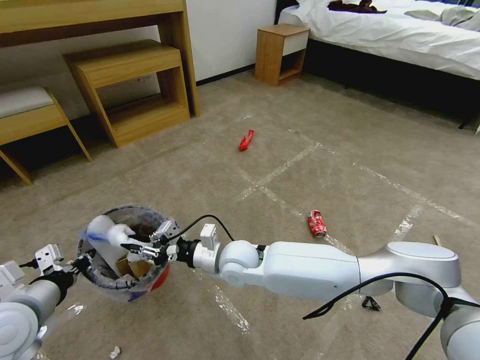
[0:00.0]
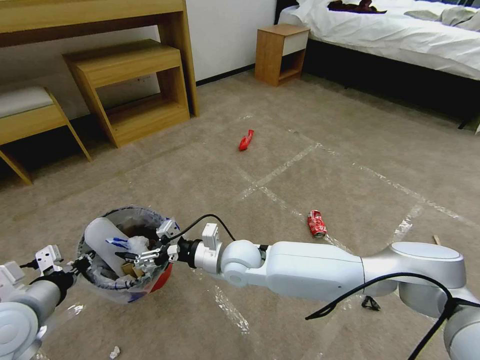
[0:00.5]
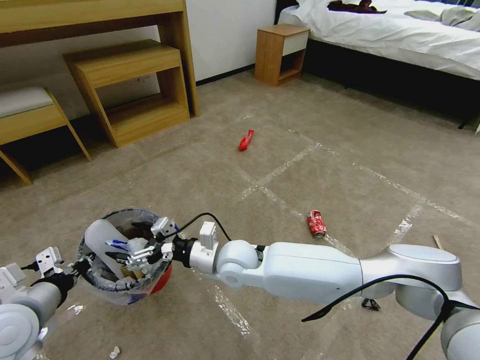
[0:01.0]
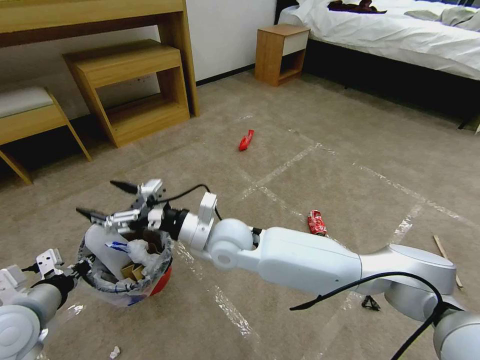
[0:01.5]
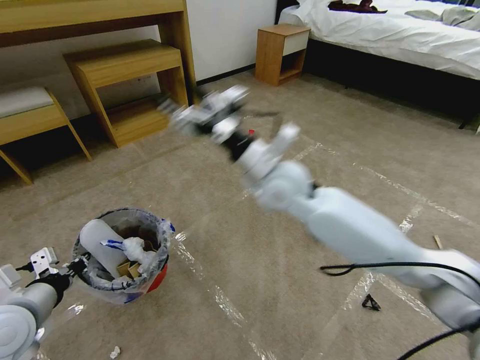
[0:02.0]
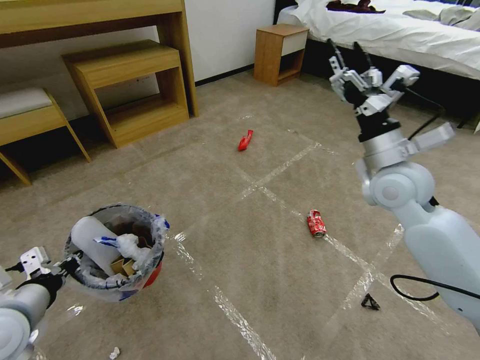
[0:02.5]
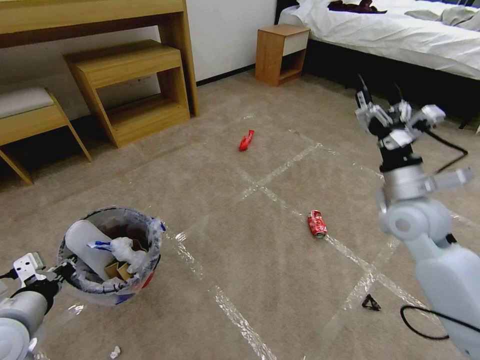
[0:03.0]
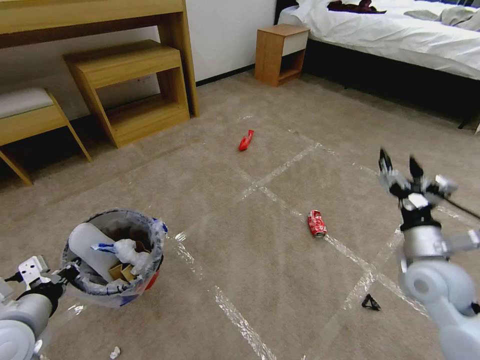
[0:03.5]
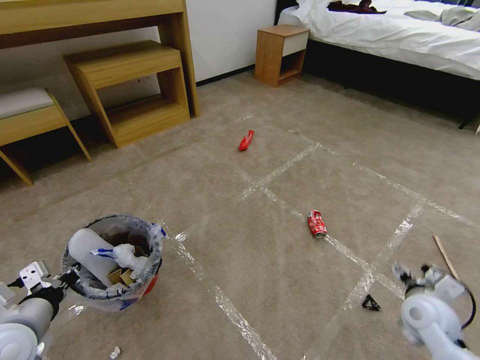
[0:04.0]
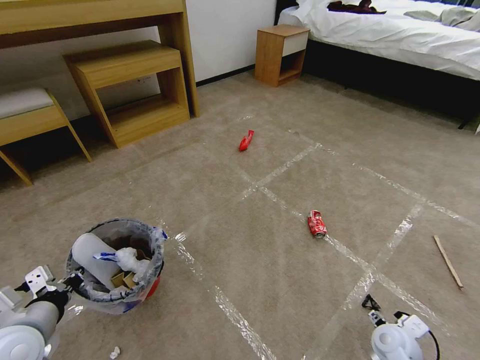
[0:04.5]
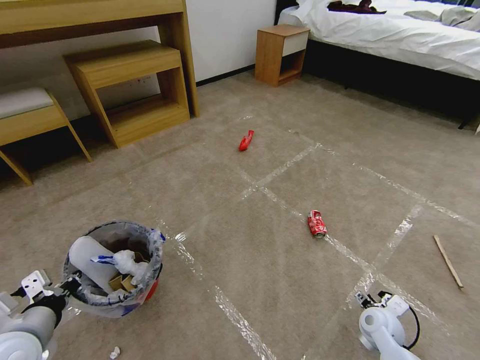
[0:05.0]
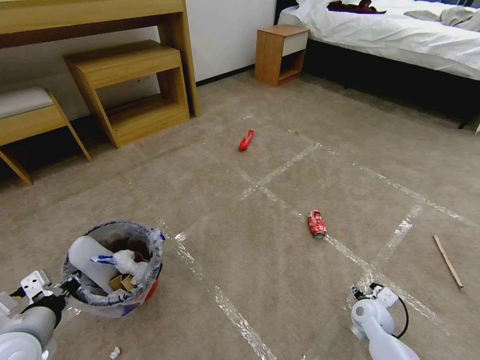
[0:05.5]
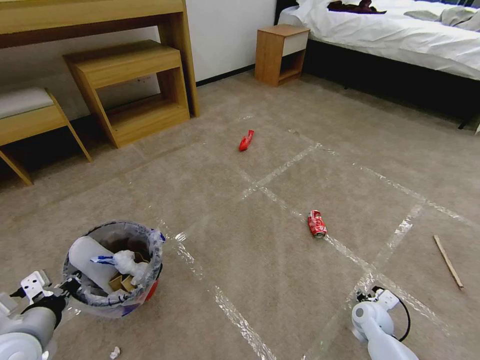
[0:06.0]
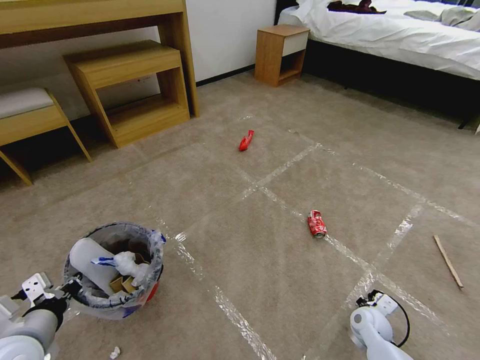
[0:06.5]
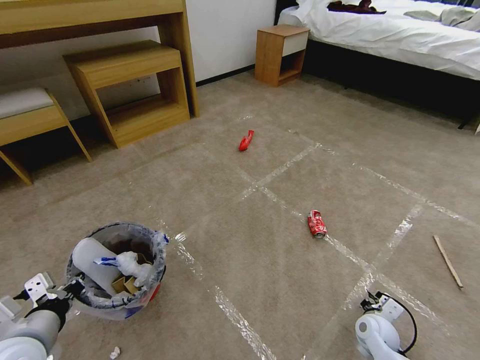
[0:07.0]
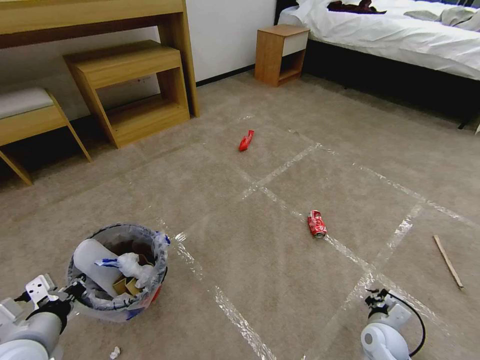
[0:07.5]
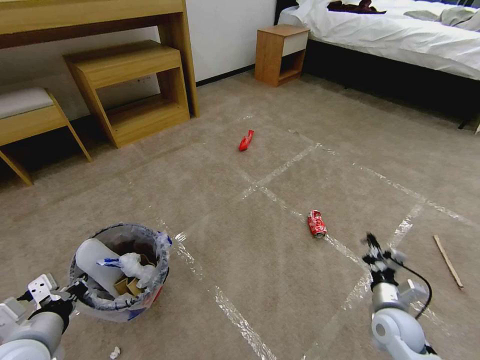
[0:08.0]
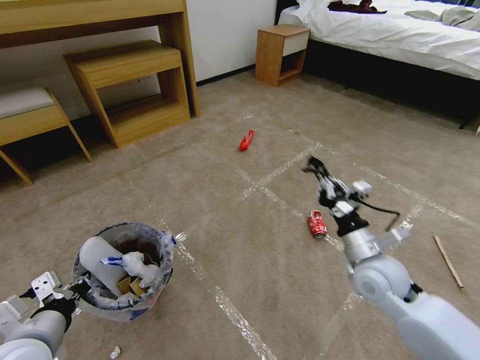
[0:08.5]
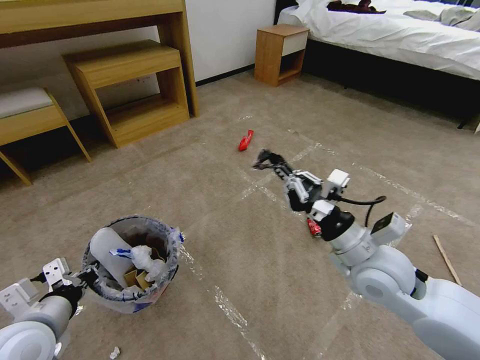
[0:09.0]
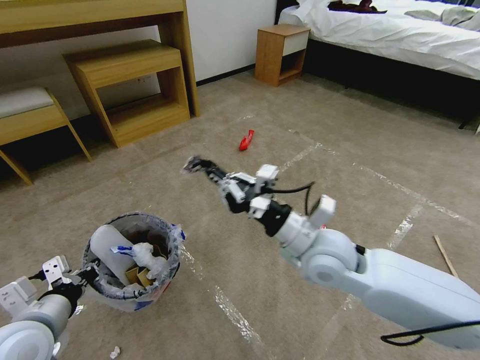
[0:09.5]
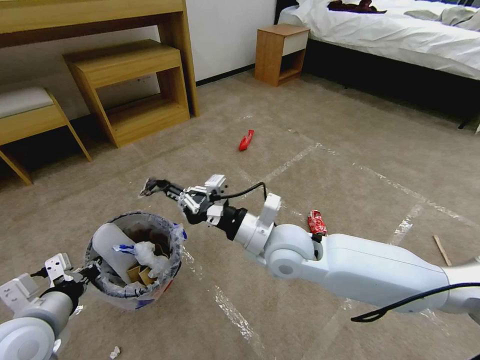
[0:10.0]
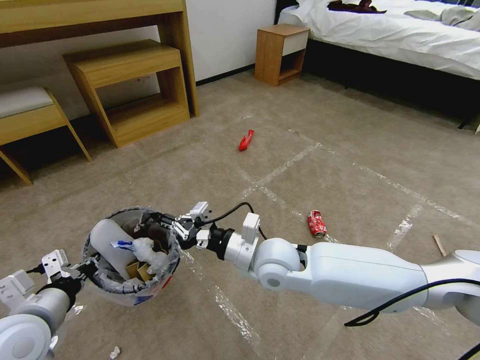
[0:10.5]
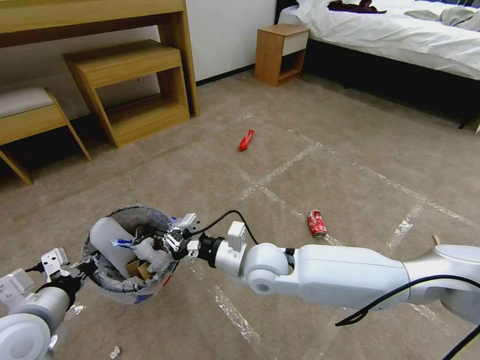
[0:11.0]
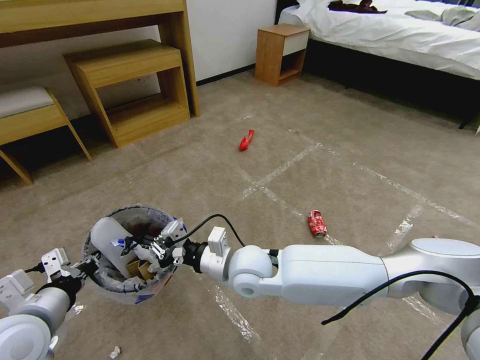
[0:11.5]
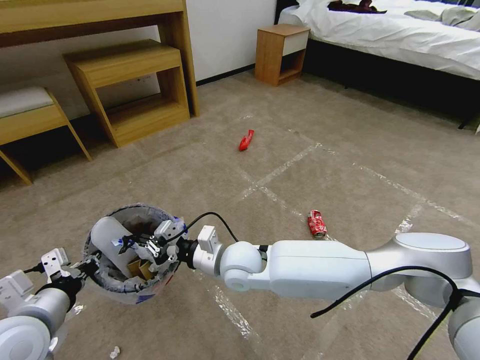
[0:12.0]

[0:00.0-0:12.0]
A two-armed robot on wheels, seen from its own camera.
Task of the whole recording: Pick up the trash bin and place the garbage on the floor into it.
0:00.0 to 0:02.0: The right gripper moves upward and to the right, some 25 cm, and opens its fingers.
0:02.0 to 0:04.0: The right gripper travels to the right, downward and backward by roughly 40 cm.
0:04.0 to 0:06.0: The right gripper heads downward, covering approximately 15 cm.
0:06.0 to 0:08.0: The right gripper moves upward, roughly 10 cm, and closes.
0:08.0 to 0:10.0: The right gripper travels to the left and upward by roughly 35 cm.
0:10.0 to 0:12.0: The right gripper goes some 10 cm to the left and downward.

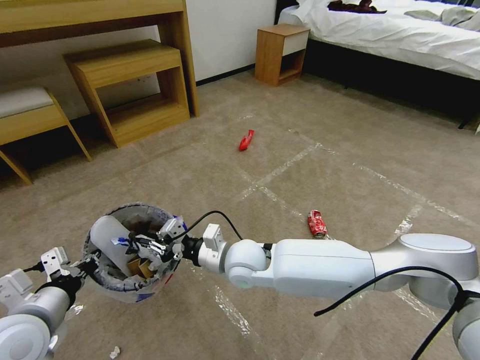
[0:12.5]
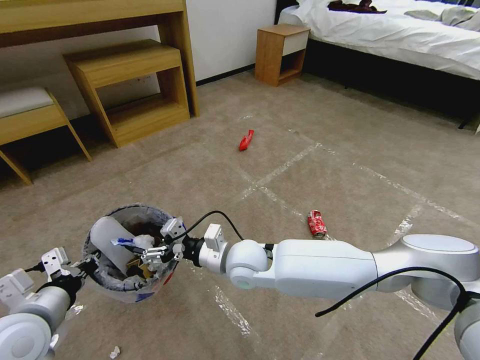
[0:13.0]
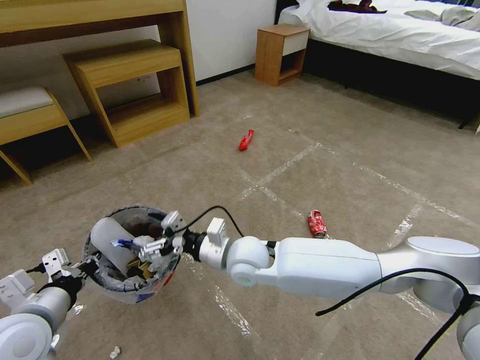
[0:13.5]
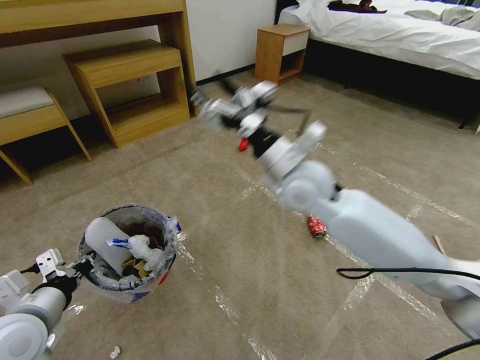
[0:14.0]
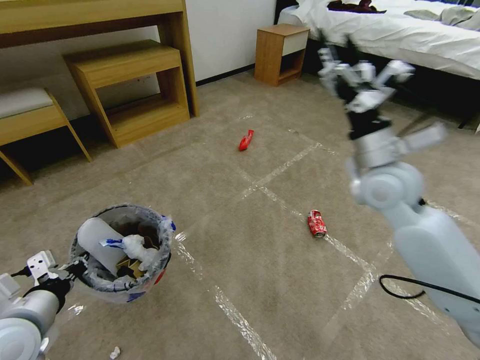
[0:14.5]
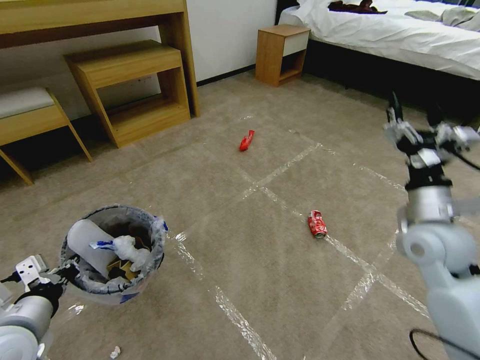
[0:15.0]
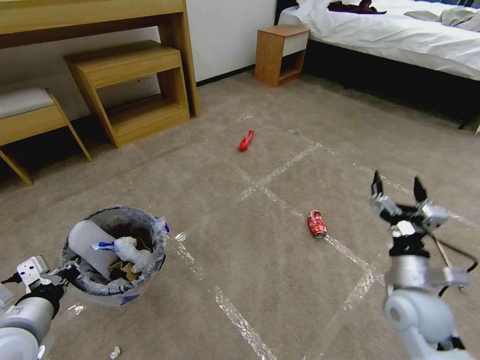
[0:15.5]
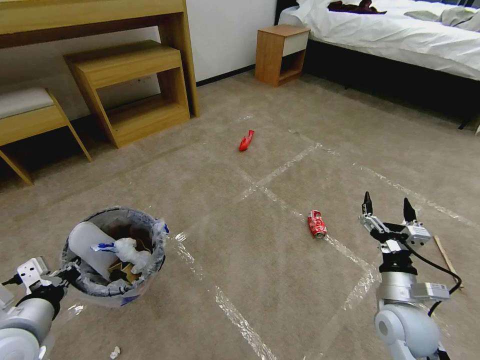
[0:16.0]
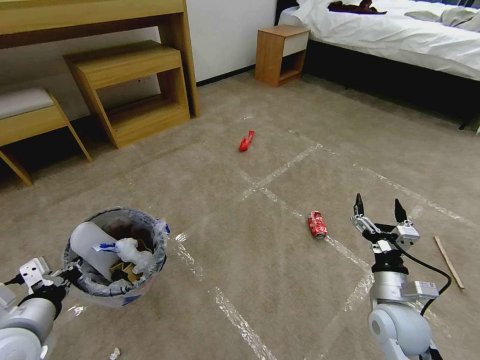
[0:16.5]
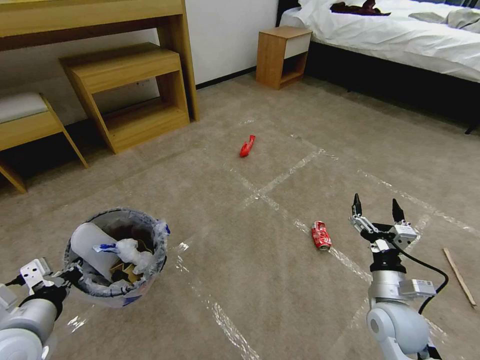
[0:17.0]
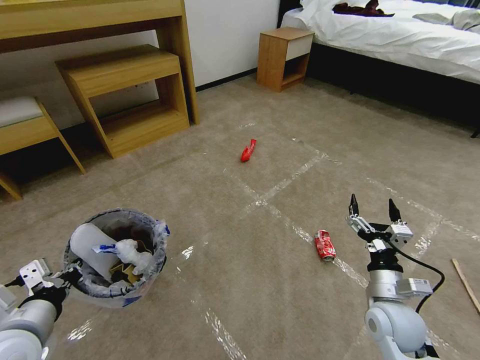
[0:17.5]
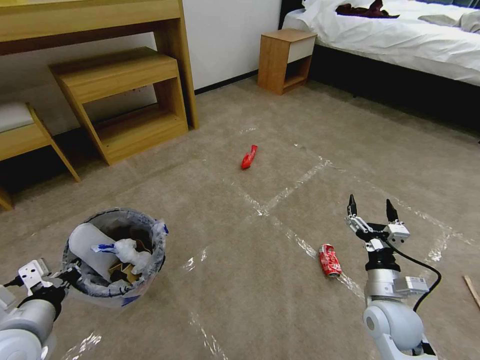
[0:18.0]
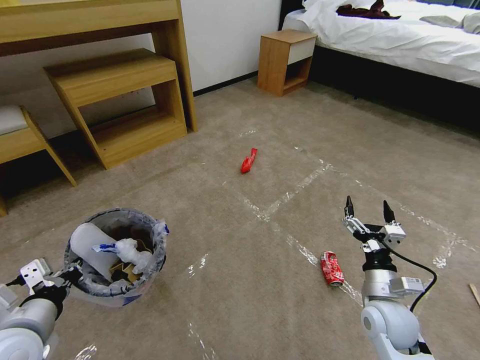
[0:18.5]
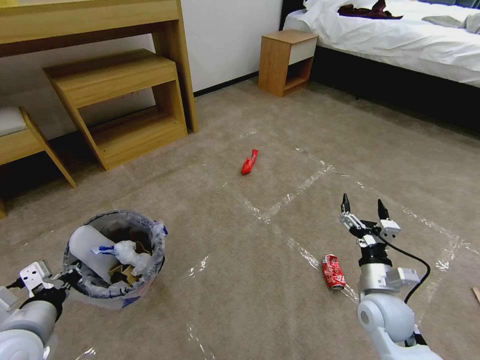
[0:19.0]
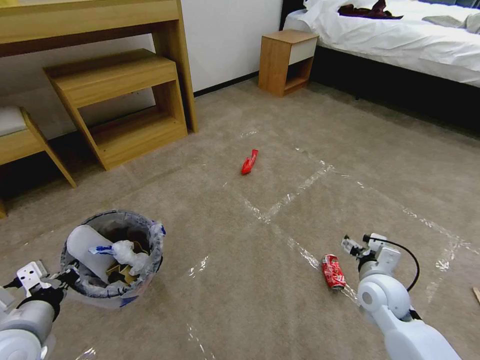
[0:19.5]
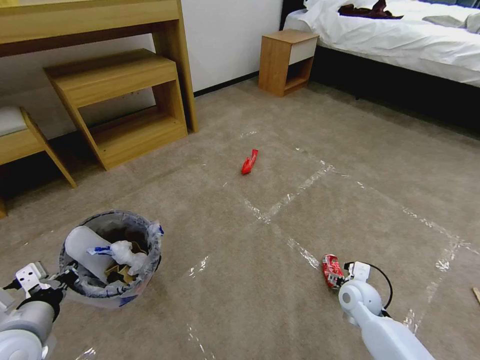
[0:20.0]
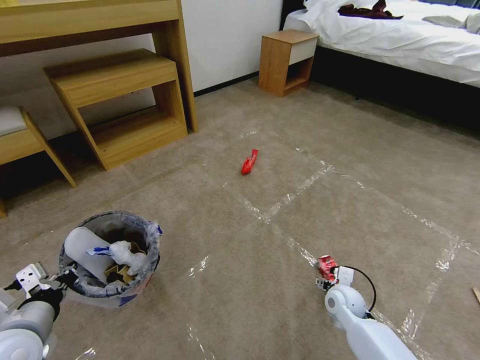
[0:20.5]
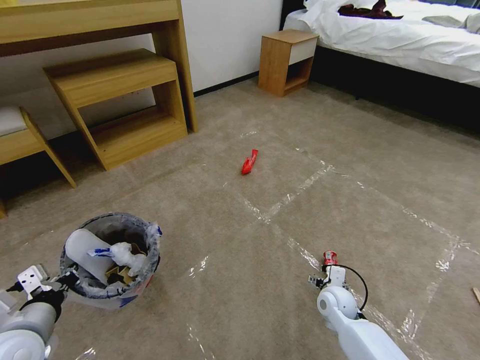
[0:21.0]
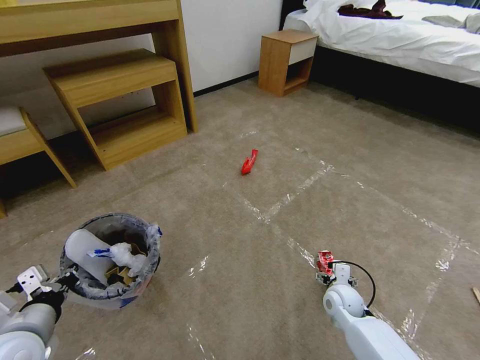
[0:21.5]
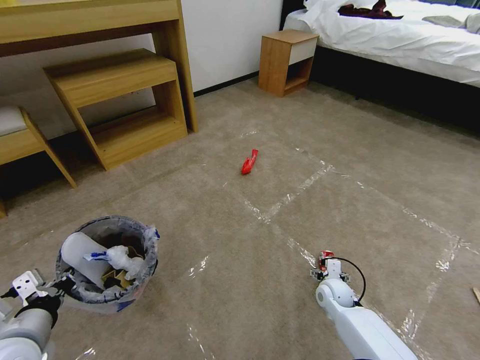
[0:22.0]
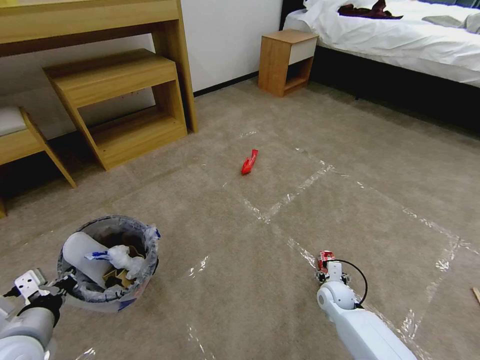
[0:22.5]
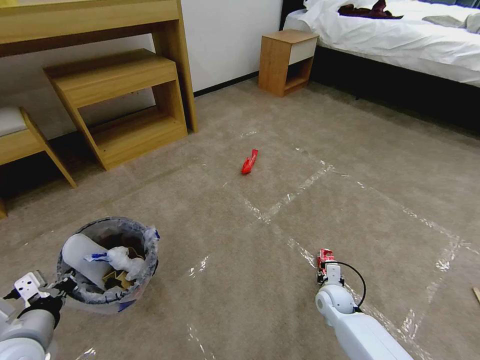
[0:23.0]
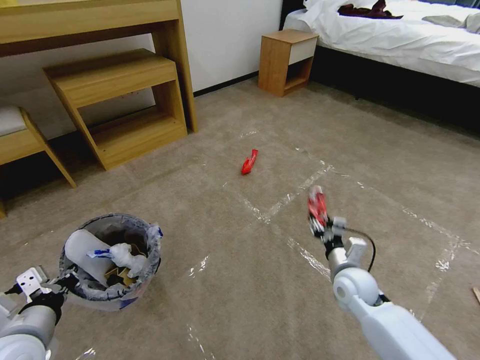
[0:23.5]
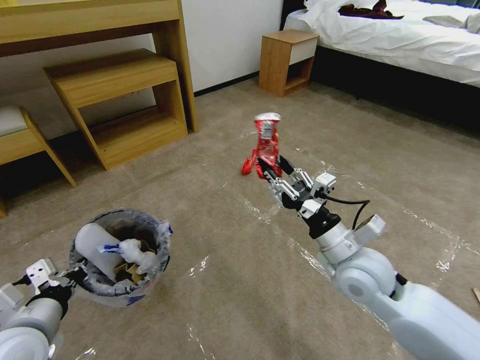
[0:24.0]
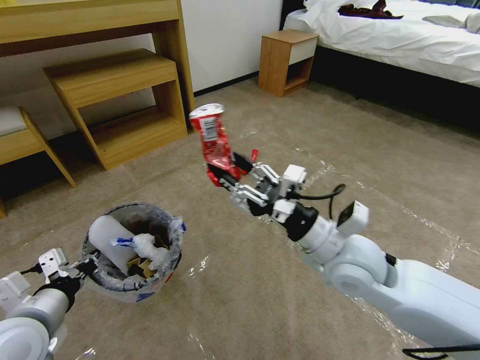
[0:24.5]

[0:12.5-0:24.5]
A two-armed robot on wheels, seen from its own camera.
Task of the whole recording: Pick up the trash bin and place the garbage on the floor into it.
0:12.5 to 0:14.5: The right gripper heads to the right and upward, covering approximately 30 cm, and opens.
0:14.5 to 0:16.5: The right gripper shifts about 30 cm downward and backward.
0:18.5 to 0:20.5: The right gripper moves downward and forward, roughly 15 cm.
0:20.5 to 0:22.5: The grippers make only small movements.
0:22.5 to 0:24.5: The right gripper moves upward, some 35 cm, while the left gripper moves some 5 cm.

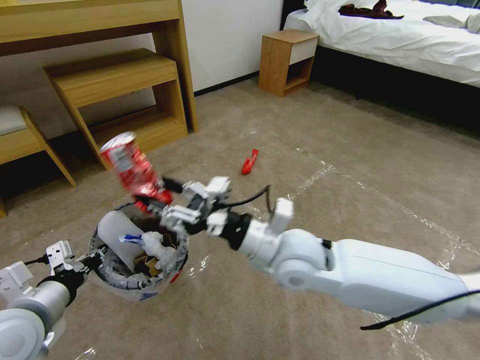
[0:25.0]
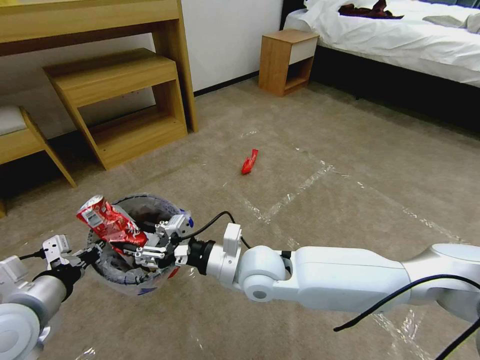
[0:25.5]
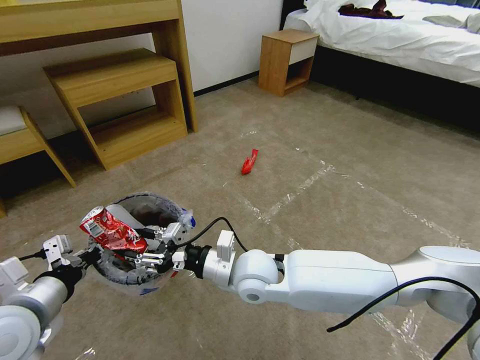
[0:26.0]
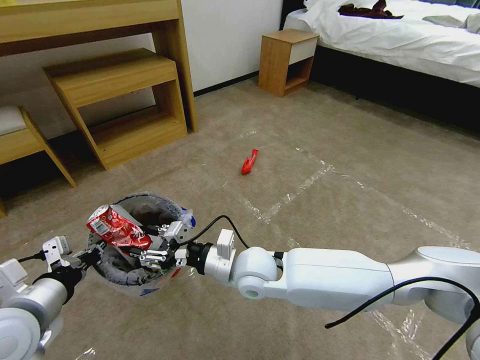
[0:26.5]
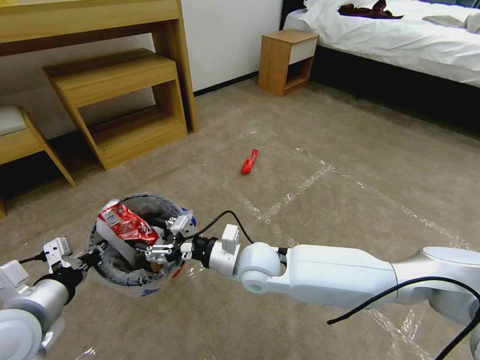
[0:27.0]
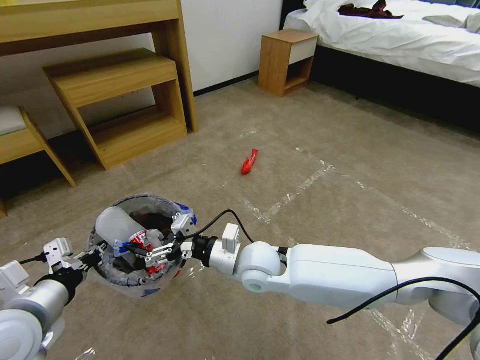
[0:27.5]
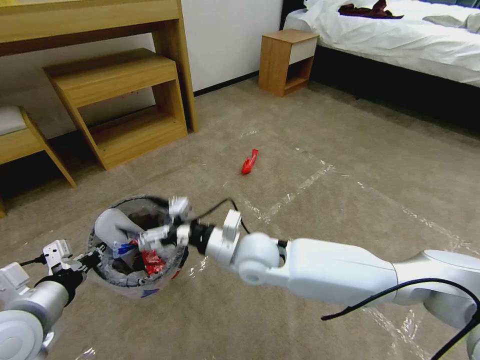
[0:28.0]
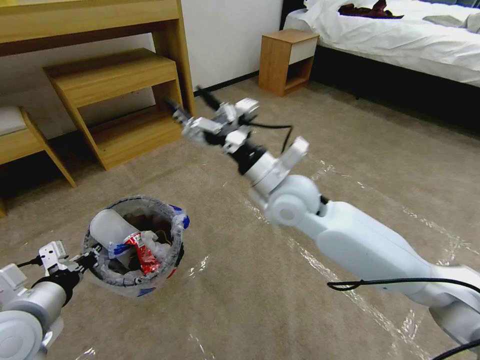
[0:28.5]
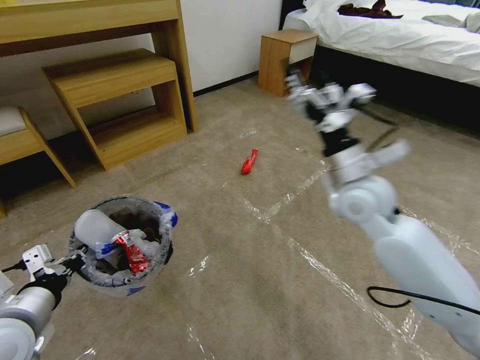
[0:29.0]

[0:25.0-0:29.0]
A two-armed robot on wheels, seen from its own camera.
Task of the whole recording: Pick up the trash bin and place the garbage on the floor into it.
0:25.0 to 0:27.0: The right gripper heads downward and to the left, covering some 10 cm.
0:27.0 to 0:29.0: The right gripper goes about 25 cm to the right and upward.
